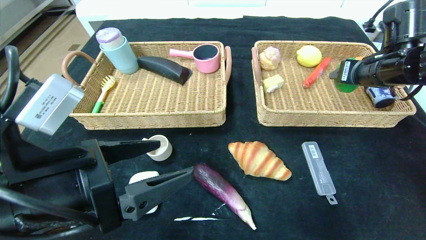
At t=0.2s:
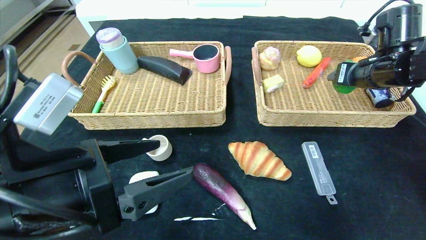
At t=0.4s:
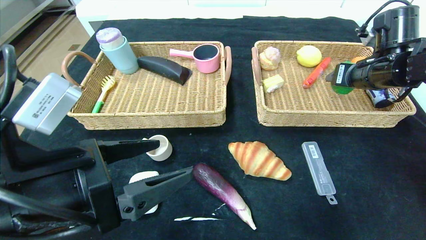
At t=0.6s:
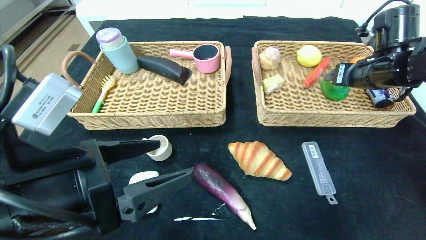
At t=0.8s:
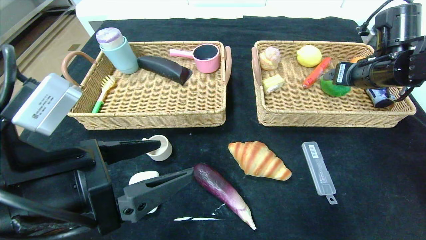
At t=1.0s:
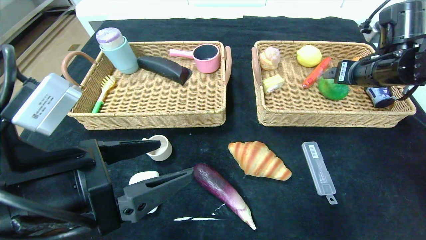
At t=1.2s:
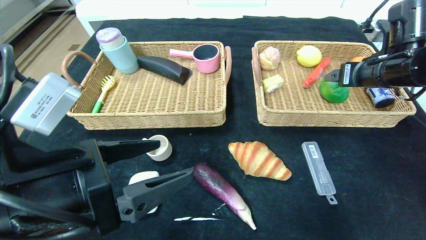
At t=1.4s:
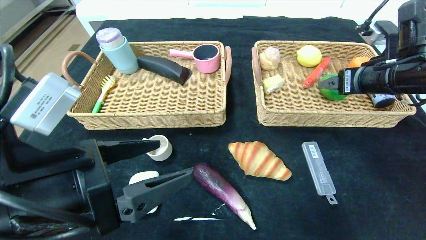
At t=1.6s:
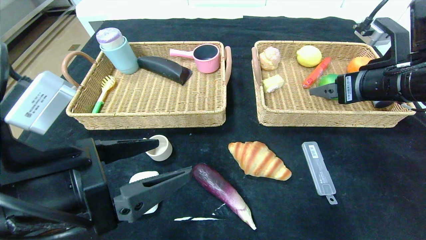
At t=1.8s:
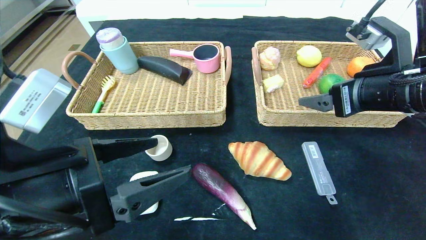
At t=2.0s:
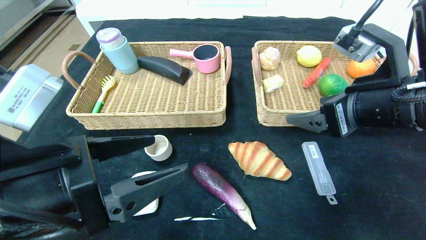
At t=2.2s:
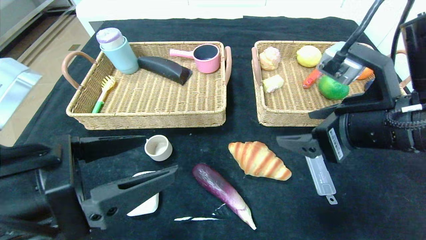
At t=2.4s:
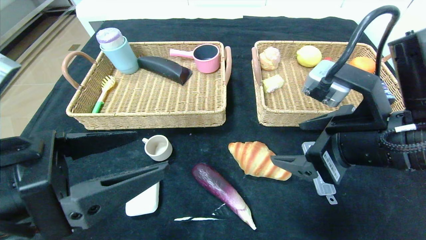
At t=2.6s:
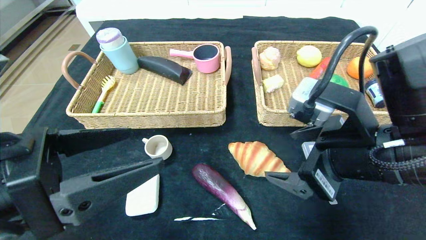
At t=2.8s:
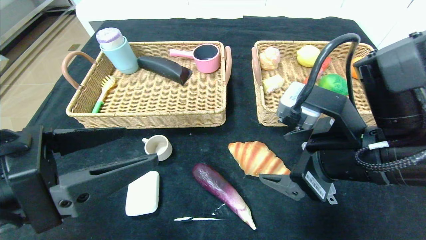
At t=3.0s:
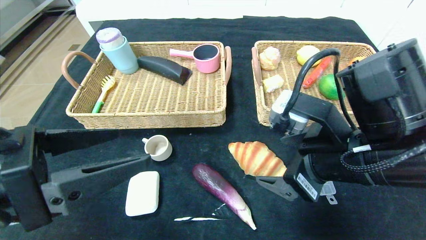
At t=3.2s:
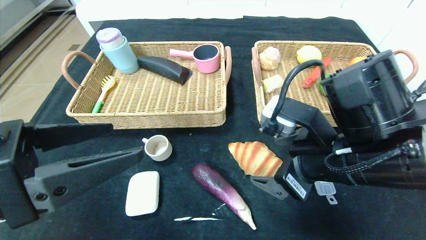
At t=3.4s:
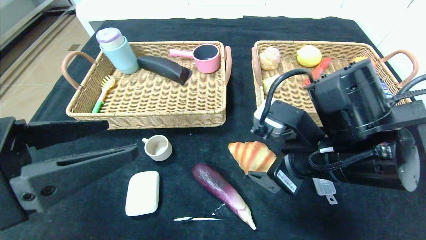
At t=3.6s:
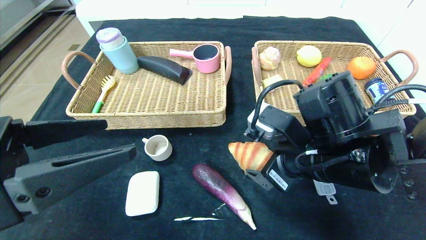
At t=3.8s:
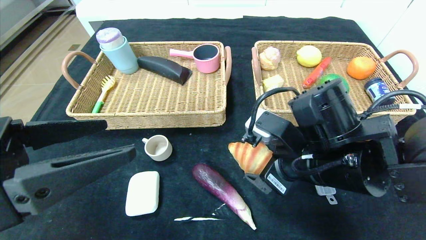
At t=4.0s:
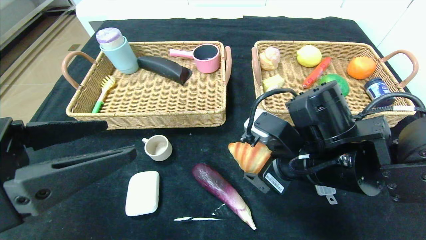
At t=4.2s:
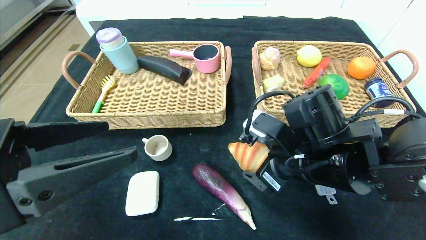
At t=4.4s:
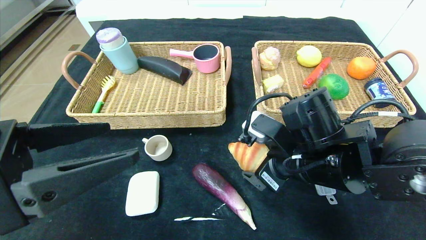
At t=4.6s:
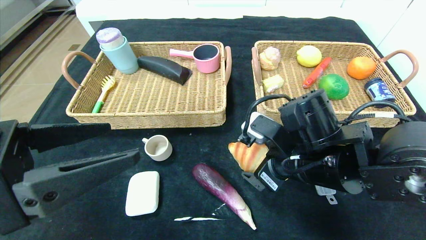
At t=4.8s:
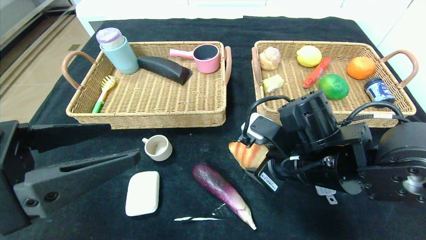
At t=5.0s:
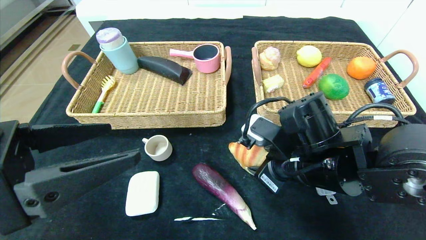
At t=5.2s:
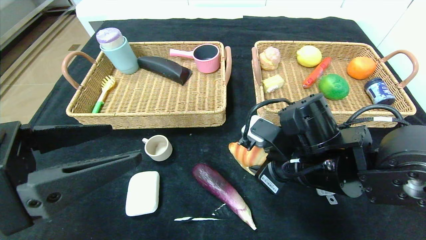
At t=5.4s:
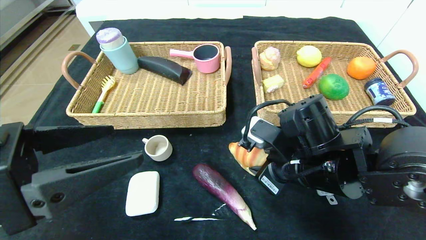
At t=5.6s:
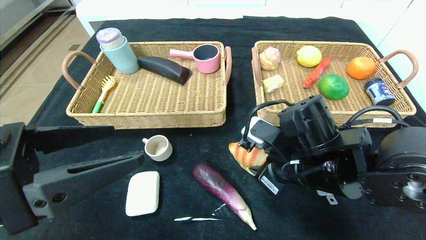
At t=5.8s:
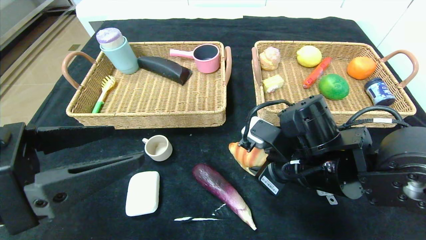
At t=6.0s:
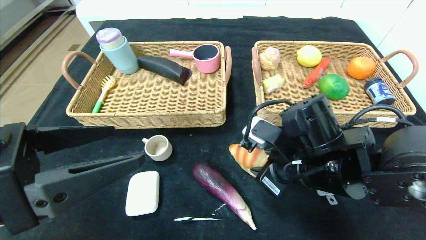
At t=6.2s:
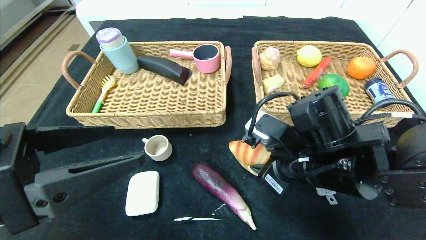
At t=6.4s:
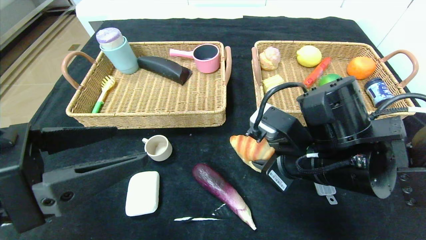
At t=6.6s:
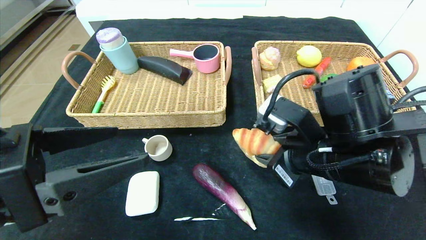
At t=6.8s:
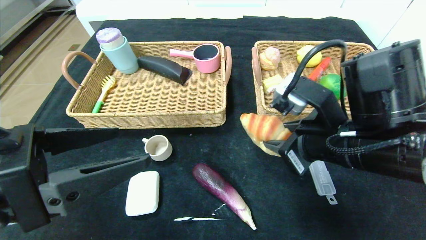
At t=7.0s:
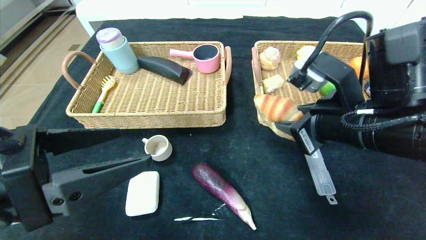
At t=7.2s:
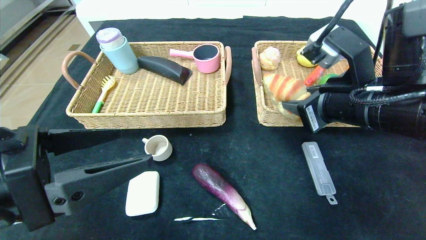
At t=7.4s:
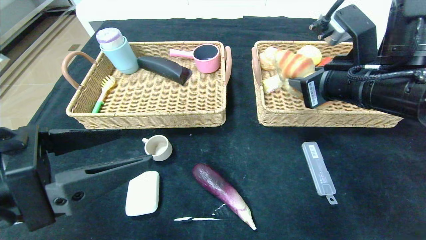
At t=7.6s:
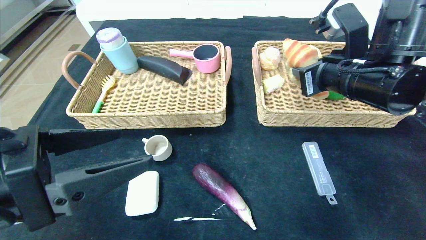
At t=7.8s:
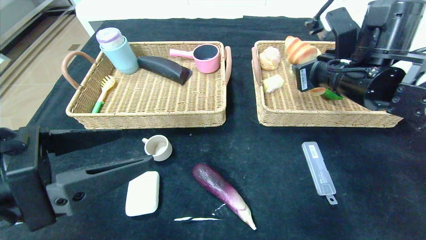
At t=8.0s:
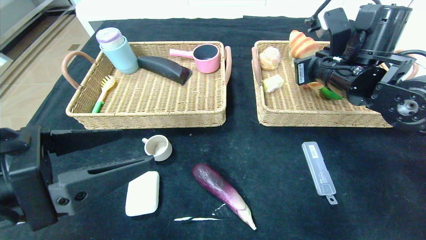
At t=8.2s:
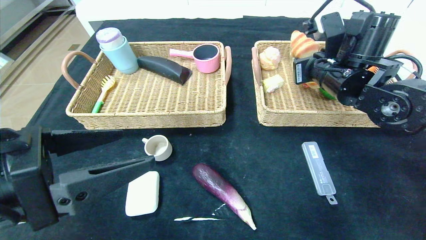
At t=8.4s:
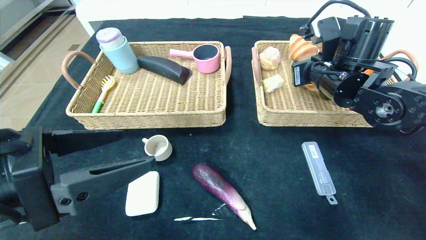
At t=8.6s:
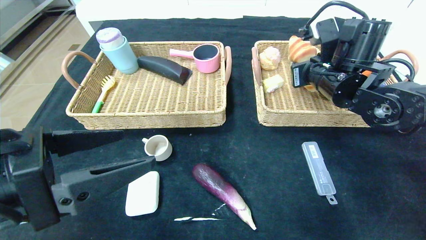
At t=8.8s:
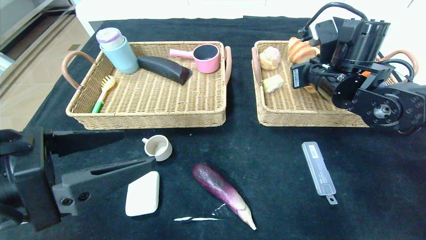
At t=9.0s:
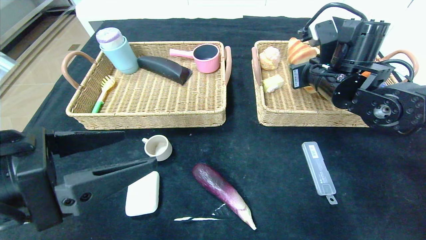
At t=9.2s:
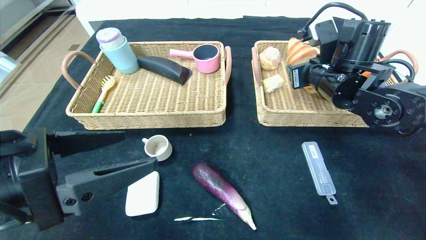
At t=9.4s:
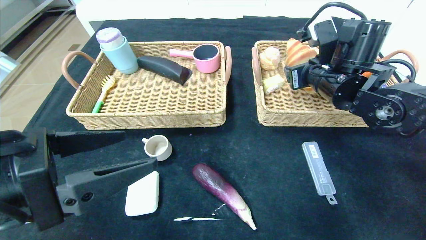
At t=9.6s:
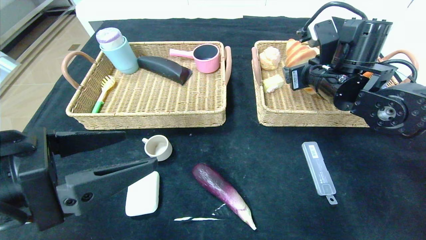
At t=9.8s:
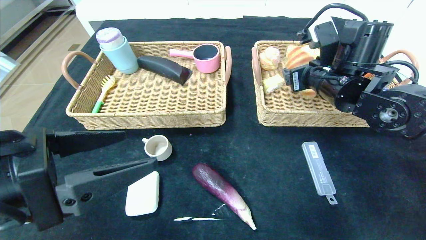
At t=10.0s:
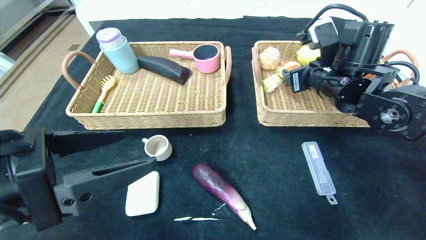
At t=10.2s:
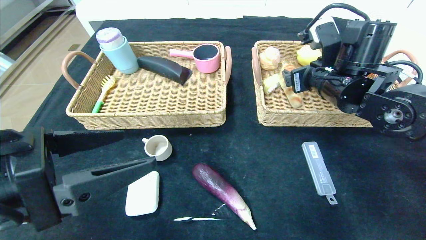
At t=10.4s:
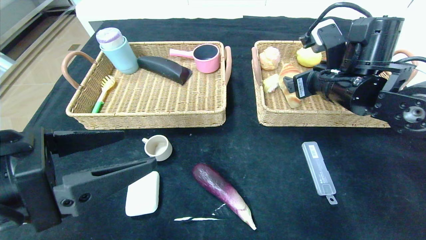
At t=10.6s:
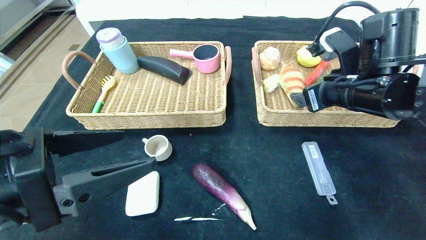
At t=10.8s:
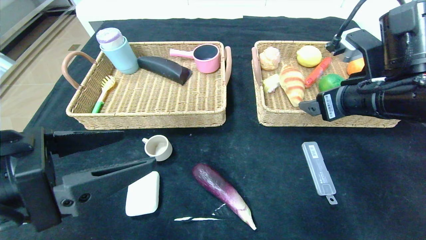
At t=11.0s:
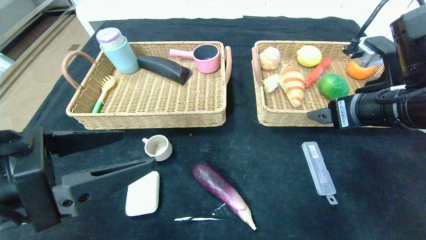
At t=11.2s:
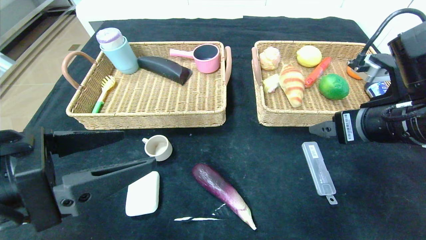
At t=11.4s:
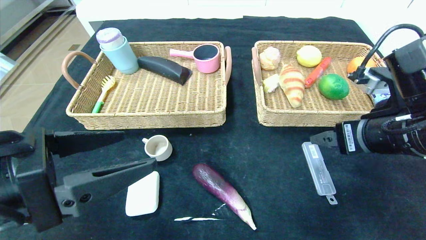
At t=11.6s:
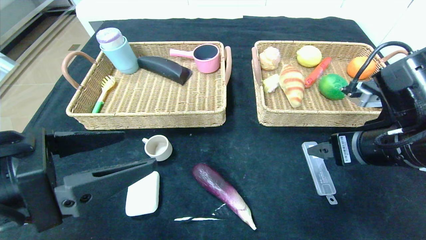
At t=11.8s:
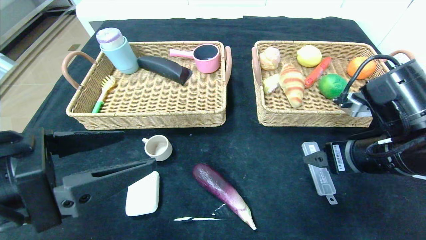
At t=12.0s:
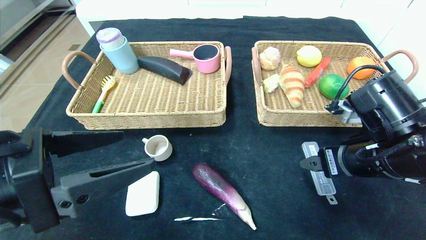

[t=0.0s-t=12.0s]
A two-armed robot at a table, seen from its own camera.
Step, t=1.0s to t=10.2s: Grasp the croissant and put it in the right basket.
t=0.0s to t=1.6s: The right gripper heads backward, covering roughly 10 cm, and opens.
t=1.6s to t=3.0s: The right gripper goes approximately 15 cm to the left, backward and downward.
t=3.0s to t=4.4s: The right gripper heads downward, covering about 5 cm.
t=4.4s to t=6.0s: The right gripper closes up.
t=6.0s to t=7.6s: The right gripper heads upward, to the right and forward, covering roughly 15 cm.
t=7.6s to t=9.0s: The right gripper travels forward by some 5 cm.
t=9.0s to t=10.4s: The right gripper opens up.
t=10.4s to t=12.0s: The right gripper travels backward and downward by approximately 10 cm.

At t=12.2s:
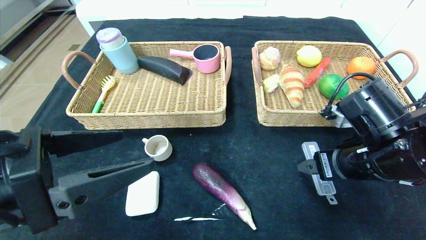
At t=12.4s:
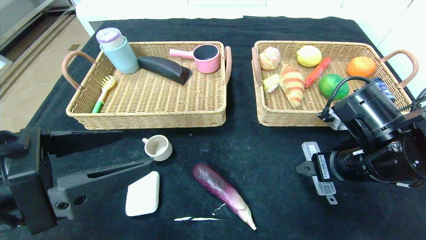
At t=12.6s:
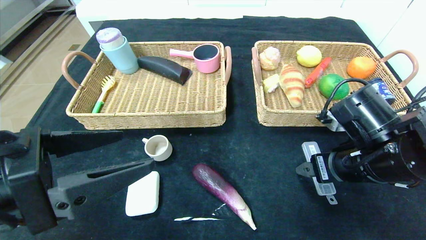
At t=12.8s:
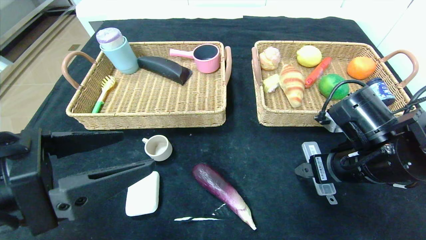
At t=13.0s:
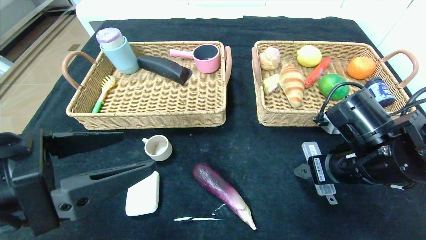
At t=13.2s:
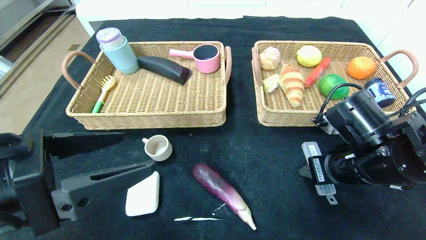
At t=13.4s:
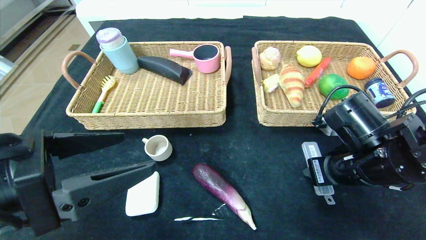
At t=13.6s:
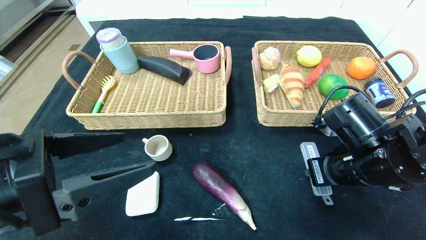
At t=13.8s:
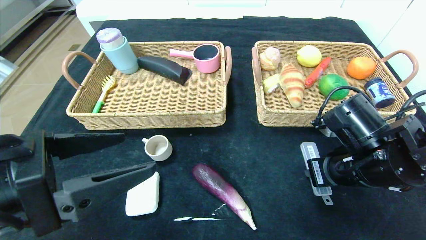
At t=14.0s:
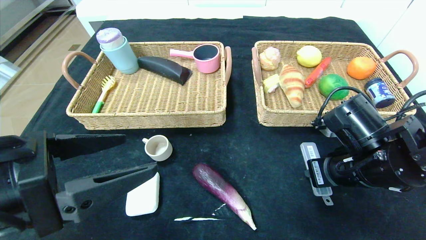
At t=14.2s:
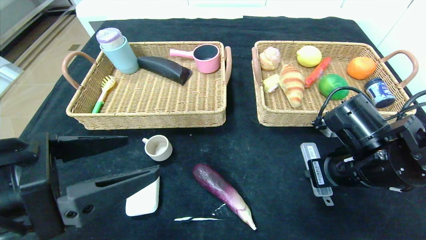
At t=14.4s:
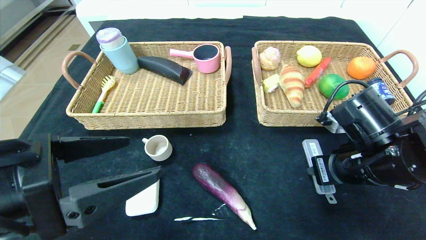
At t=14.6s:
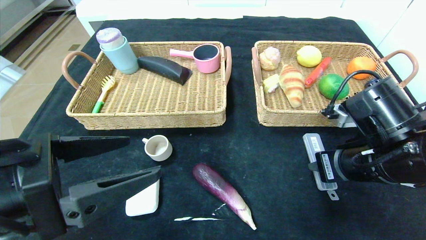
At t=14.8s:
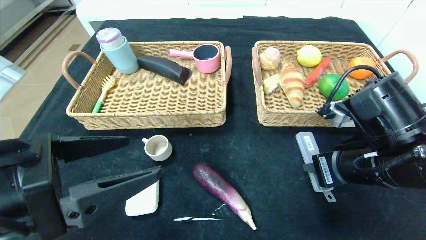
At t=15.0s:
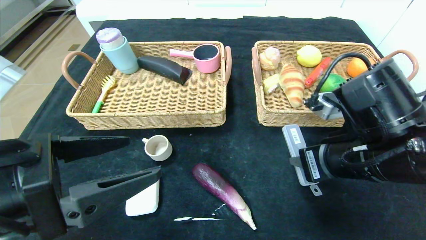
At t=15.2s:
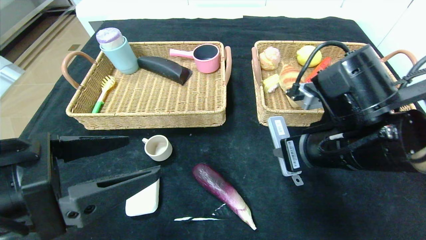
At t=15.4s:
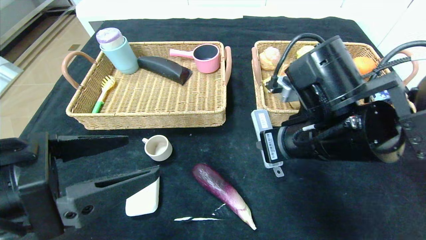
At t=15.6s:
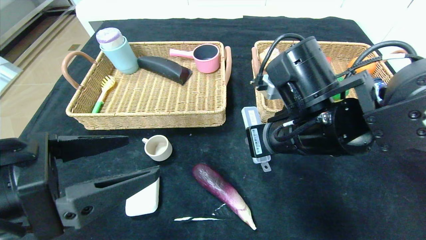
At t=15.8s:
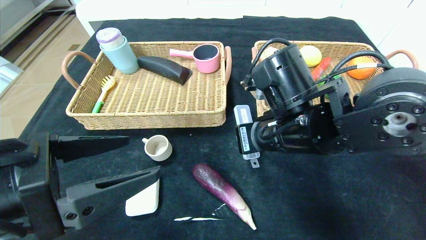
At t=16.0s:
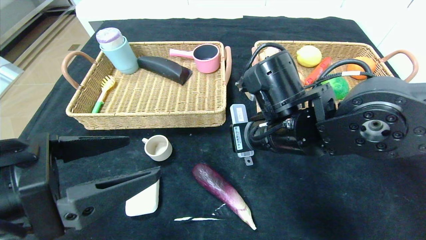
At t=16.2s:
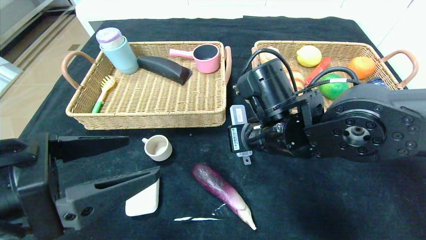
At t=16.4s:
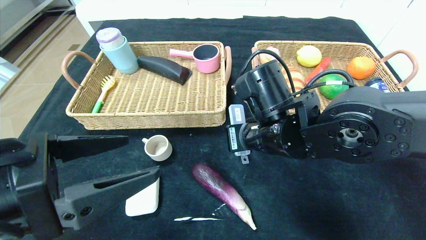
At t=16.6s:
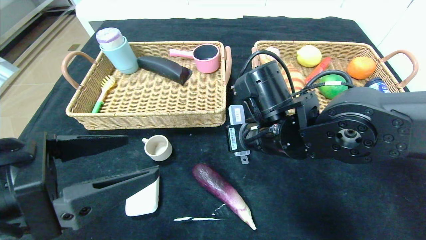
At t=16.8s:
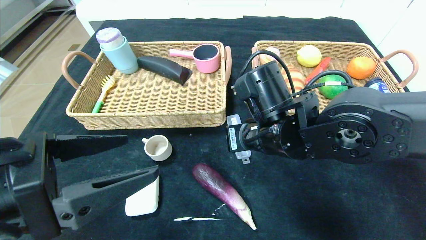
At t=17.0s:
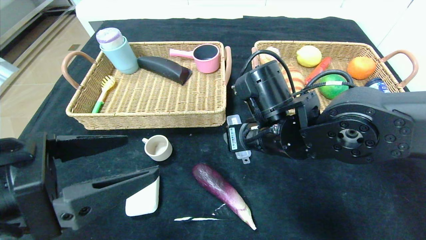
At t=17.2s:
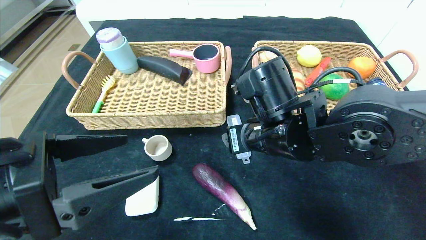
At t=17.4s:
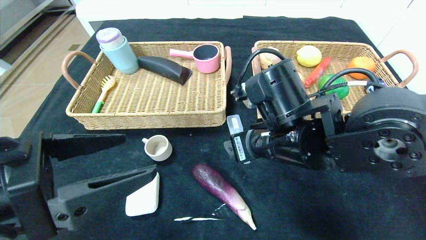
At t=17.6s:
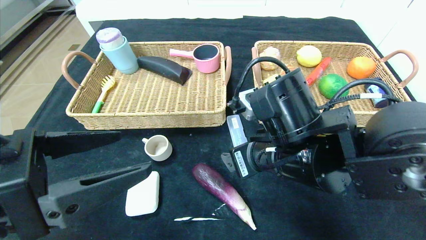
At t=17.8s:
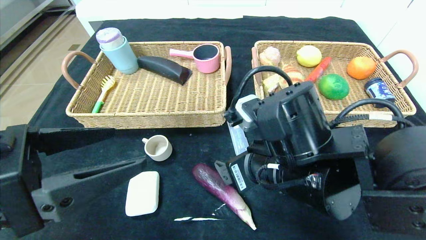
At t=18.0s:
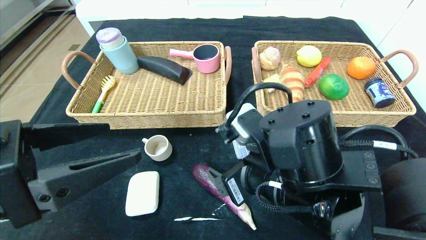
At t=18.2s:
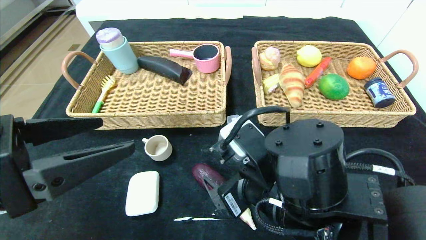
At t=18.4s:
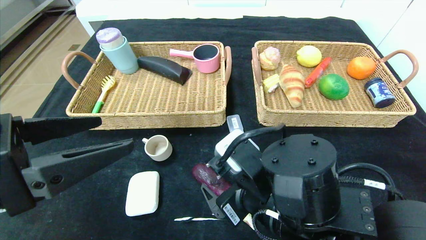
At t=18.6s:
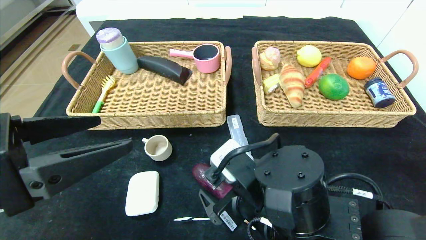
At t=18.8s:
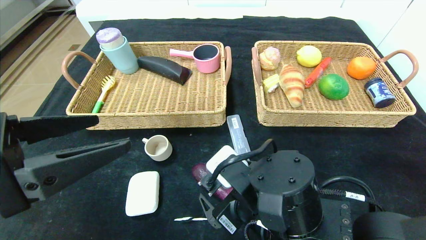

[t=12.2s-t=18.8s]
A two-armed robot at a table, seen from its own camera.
Step, t=12.2s to t=17.0s: Place the compass in the center of the table.
t=12.2s to t=13.8s: The right gripper closes.
t=13.8s to t=15.4s: The right gripper shifts about 10 cm to the left and upward.
t=15.4s to t=17.2s: The right gripper goes roughly 5 cm to the left, and opens.
t=17.2s to t=18.8s: The right gripper shifts some 10 cm backward and downward.
